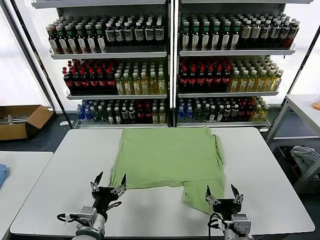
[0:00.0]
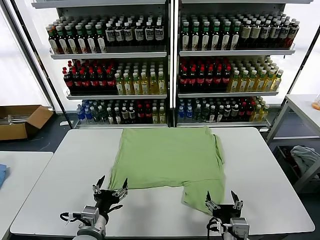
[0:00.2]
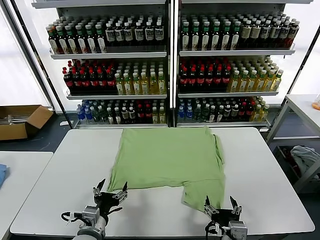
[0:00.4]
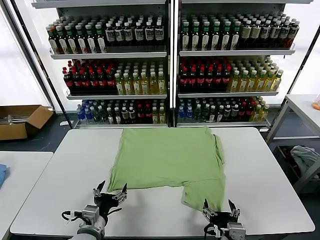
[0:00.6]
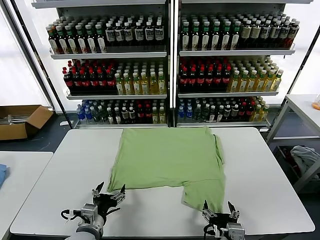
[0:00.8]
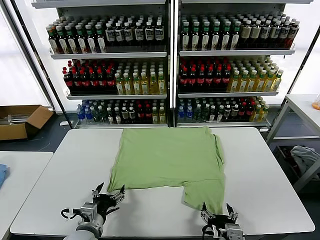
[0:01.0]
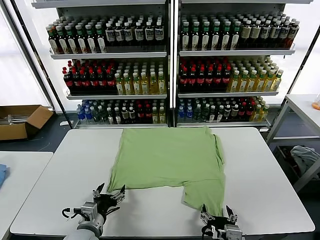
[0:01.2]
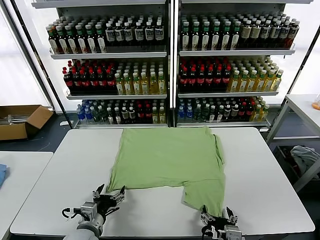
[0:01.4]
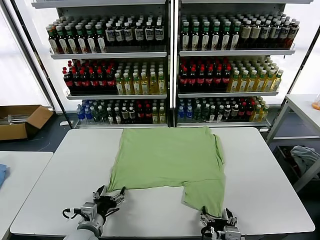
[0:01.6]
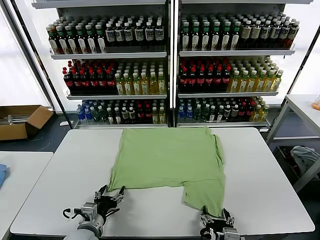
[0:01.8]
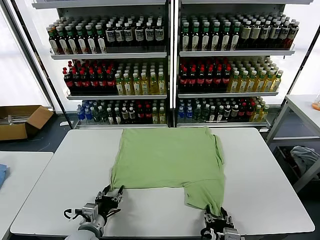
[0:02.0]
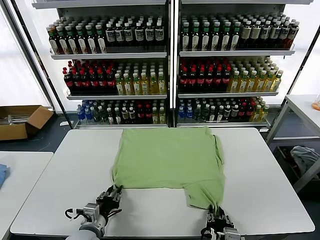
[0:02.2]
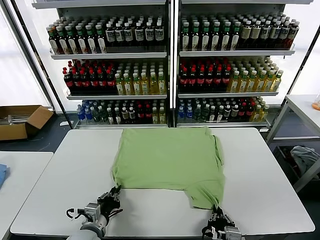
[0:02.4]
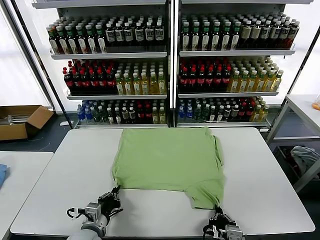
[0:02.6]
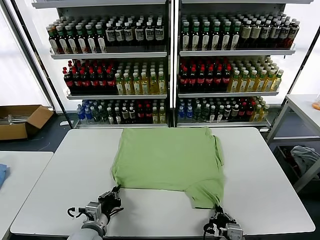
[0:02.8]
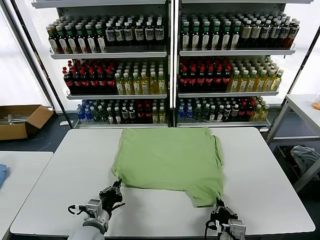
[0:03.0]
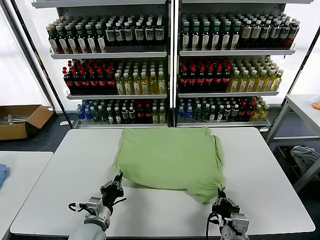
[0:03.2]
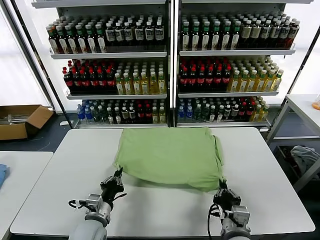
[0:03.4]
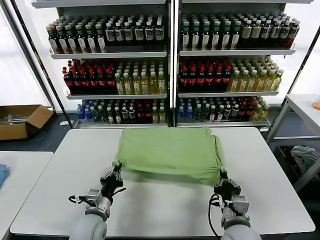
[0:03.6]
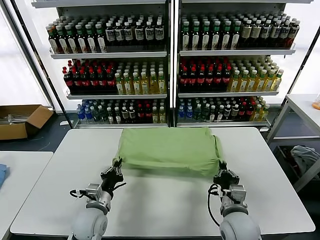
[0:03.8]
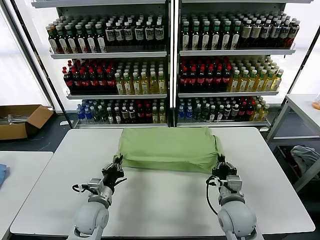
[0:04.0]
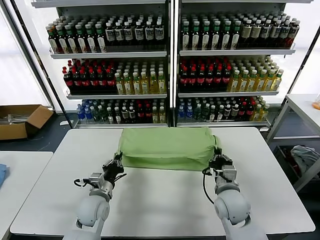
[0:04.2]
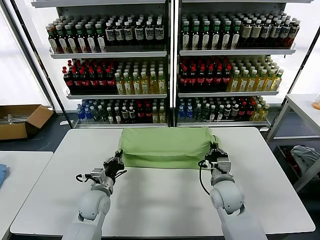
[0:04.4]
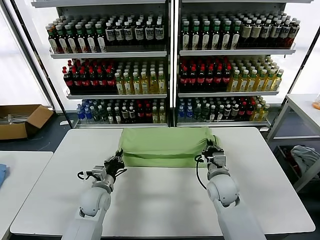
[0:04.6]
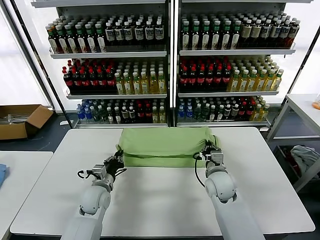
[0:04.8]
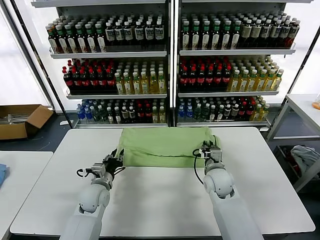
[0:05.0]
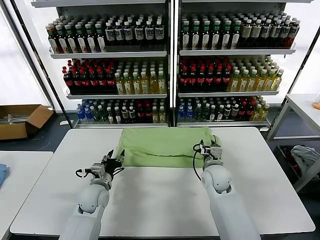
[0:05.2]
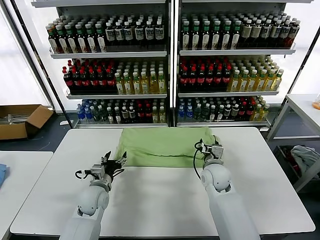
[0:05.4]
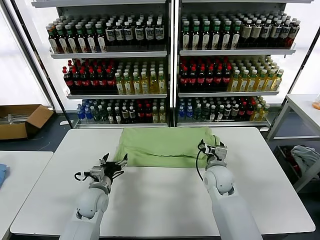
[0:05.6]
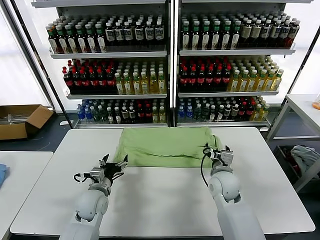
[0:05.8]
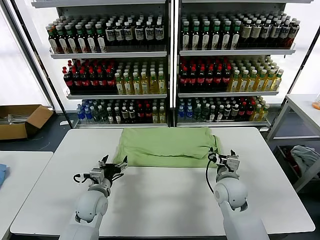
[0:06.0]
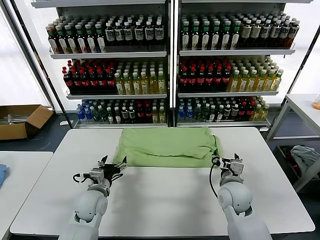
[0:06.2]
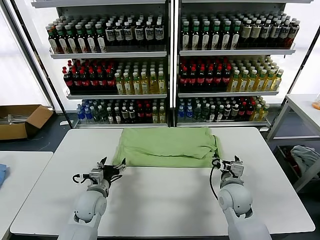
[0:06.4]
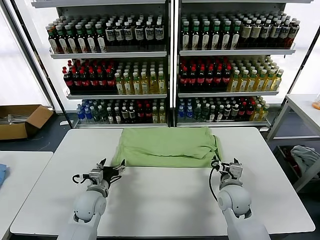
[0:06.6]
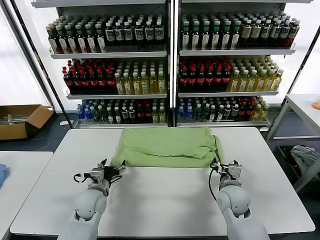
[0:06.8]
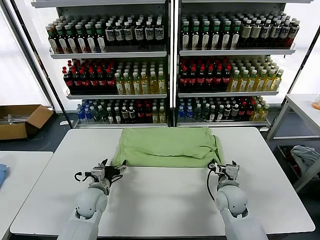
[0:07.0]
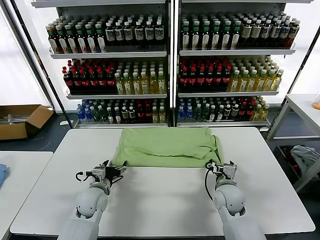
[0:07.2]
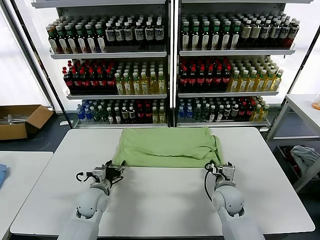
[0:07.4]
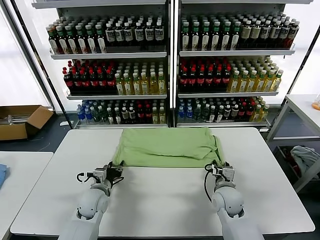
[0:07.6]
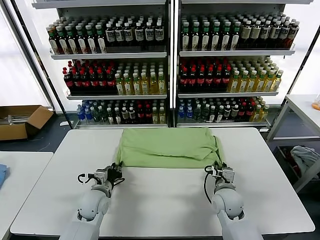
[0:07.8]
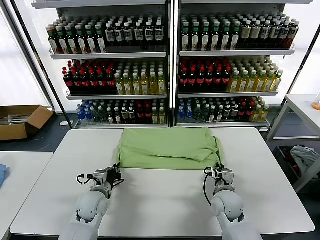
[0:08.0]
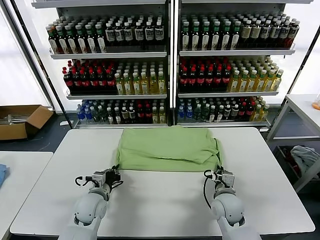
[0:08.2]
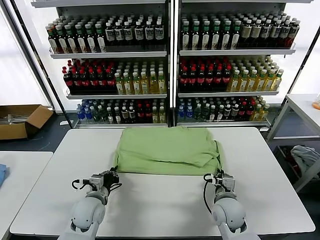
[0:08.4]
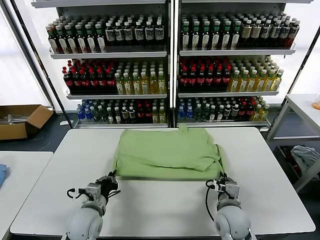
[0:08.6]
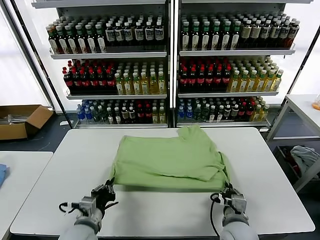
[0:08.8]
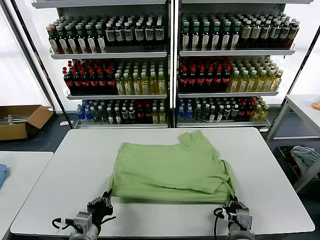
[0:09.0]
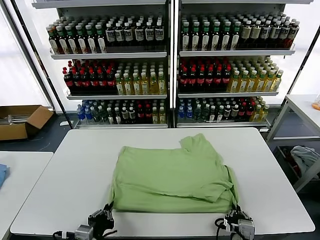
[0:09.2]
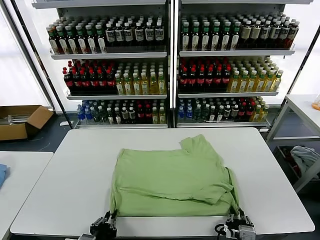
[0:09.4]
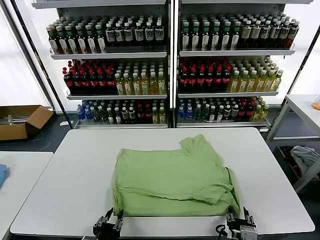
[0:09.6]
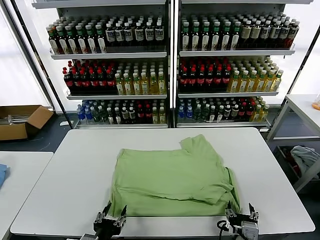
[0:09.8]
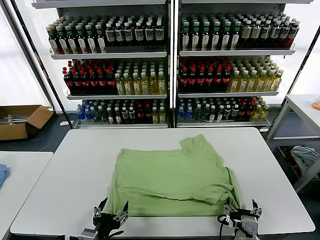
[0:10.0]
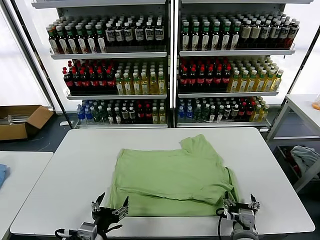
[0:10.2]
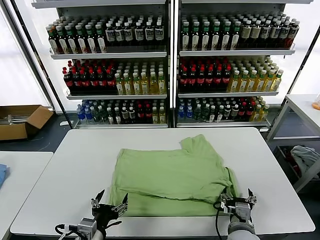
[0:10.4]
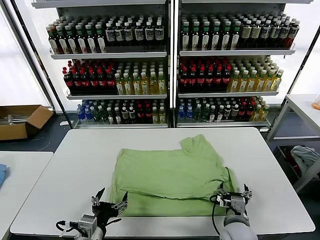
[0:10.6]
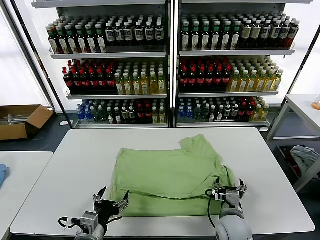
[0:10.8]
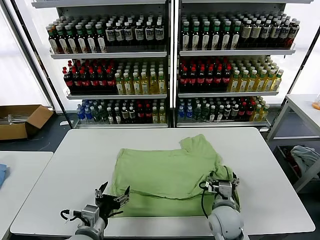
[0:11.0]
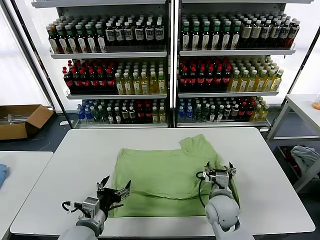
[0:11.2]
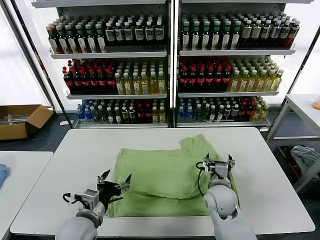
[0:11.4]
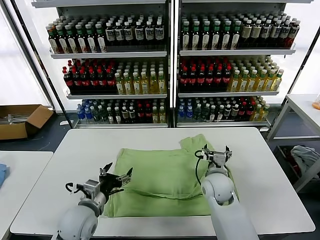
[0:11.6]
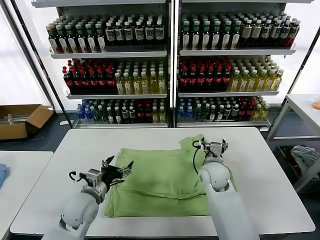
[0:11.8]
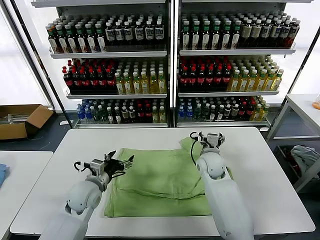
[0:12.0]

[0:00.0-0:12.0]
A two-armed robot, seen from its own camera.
Task of the whole recording: fold and organize the clothes.
Step, 0:00.0 to 0:02.4: use both grippers simultaneously to clamp the lower edge of the clothing fabric.
Step, 0:02.6 to 0:05.6: use both grippers to drag the lower edge of the fabric forward and fold it over the upper edge.
Step, 0:05.8 to 0:09.6: Drag the clothes downward with both gripper.
0:01.6 to 0:03.0: The right gripper closes up. The left gripper closes.
0:03.0 to 0:04.4: The left gripper is displaced forward by roughly 10 cm. The right gripper is displaced forward by some 20 cm.
0:04.4 to 0:06.0: The left gripper opens, while the right gripper opens its fingers.
0:06.0 to 0:07.6: The right gripper is displaced downward by roughly 5 cm, and closes up. The left gripper closes.
0:07.6 to 0:09.0: Both grippers move backward, approximately 20 cm. The right gripper closes its fingers. Meanwhile the left gripper closes up.
0:09.0 to 0:10.4: The left gripper opens its fingers; the right gripper heads forward, covering roughly 5 cm, and opens its fingers.
0:10.4 to 0:12.0: Both grippers travel together forward, about 20 cm.

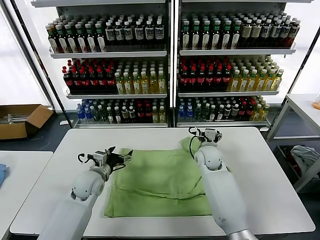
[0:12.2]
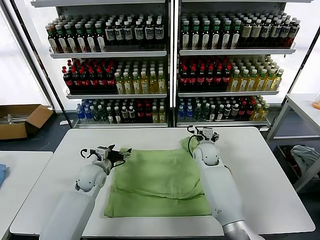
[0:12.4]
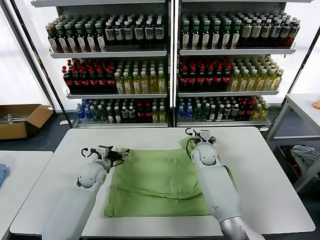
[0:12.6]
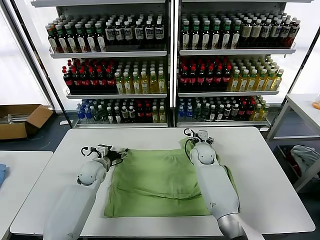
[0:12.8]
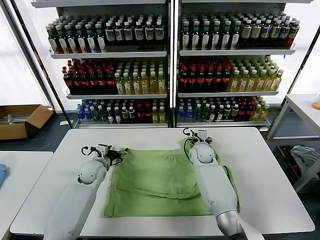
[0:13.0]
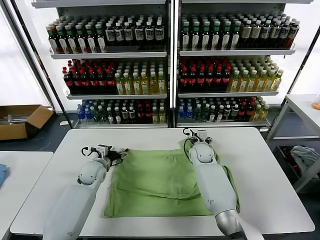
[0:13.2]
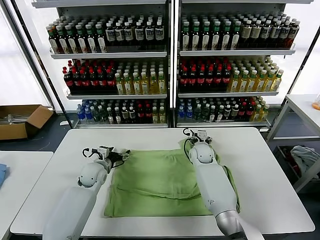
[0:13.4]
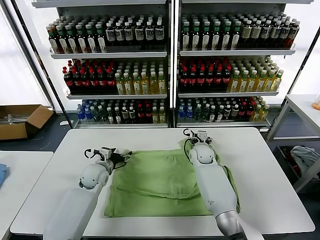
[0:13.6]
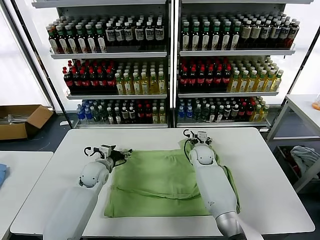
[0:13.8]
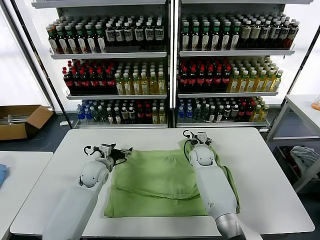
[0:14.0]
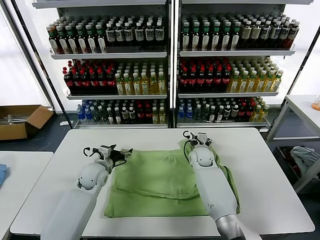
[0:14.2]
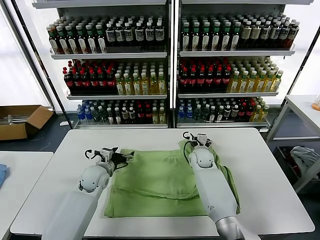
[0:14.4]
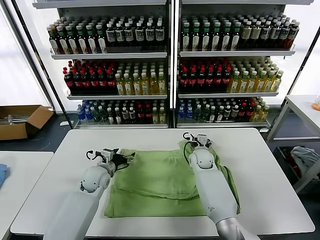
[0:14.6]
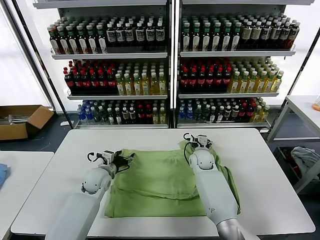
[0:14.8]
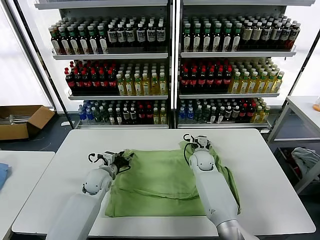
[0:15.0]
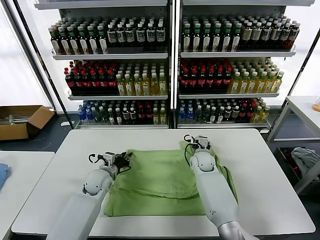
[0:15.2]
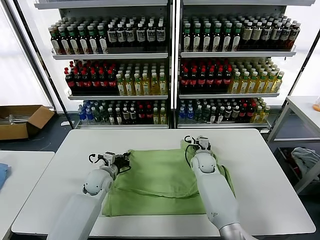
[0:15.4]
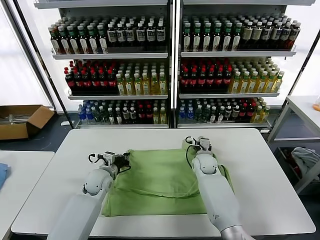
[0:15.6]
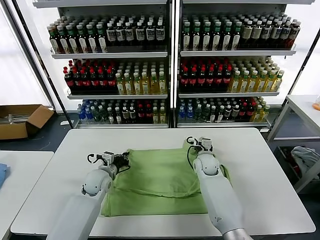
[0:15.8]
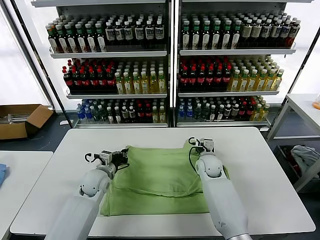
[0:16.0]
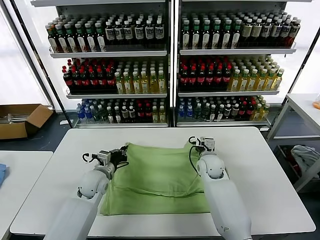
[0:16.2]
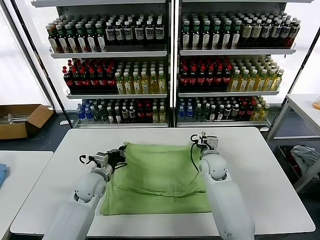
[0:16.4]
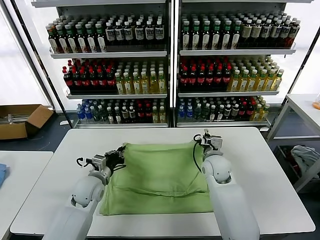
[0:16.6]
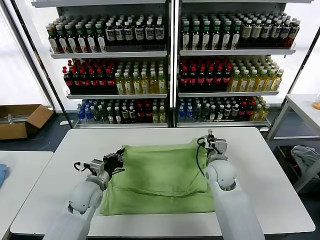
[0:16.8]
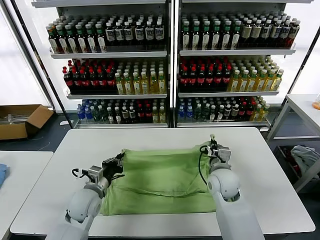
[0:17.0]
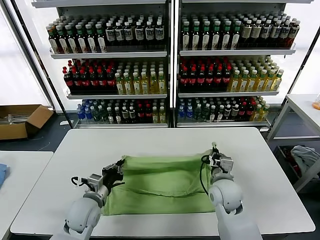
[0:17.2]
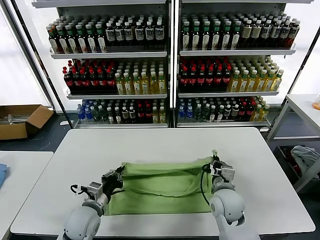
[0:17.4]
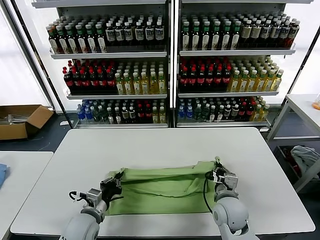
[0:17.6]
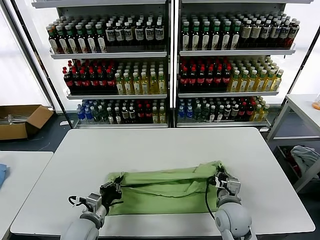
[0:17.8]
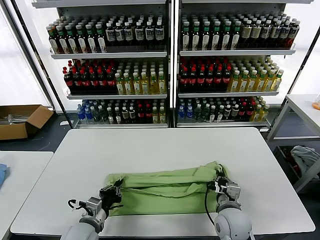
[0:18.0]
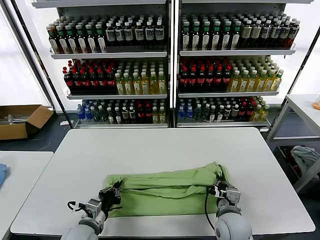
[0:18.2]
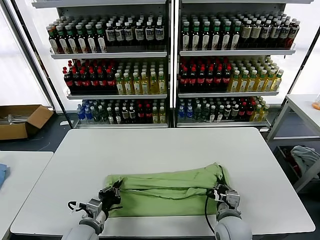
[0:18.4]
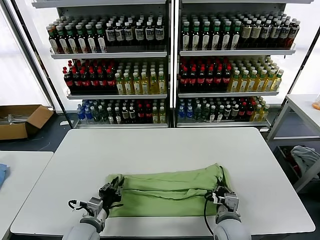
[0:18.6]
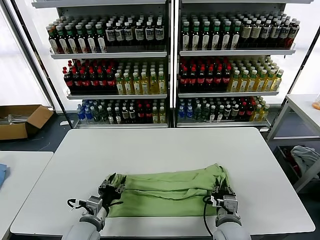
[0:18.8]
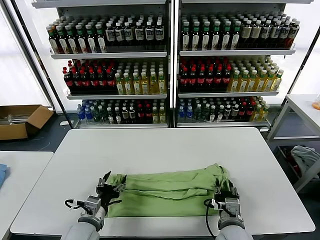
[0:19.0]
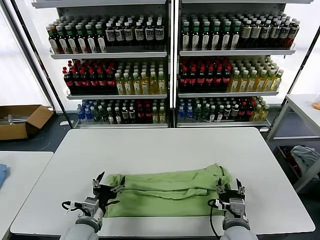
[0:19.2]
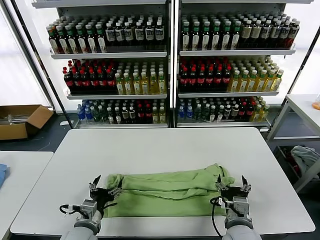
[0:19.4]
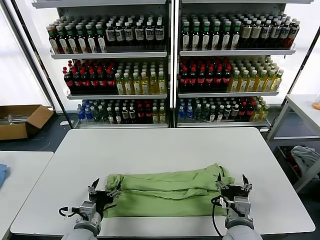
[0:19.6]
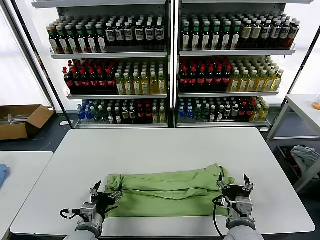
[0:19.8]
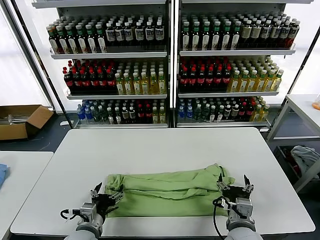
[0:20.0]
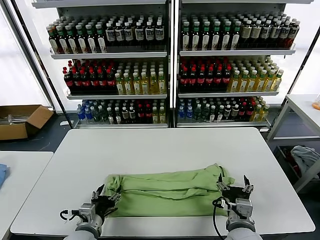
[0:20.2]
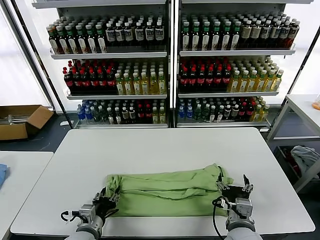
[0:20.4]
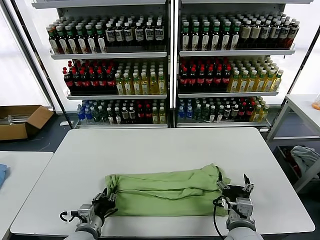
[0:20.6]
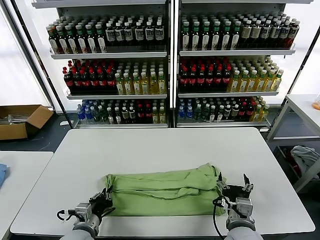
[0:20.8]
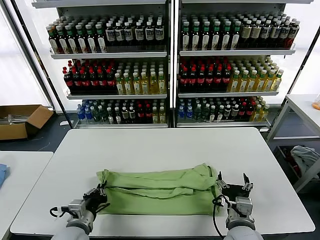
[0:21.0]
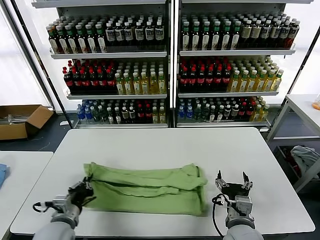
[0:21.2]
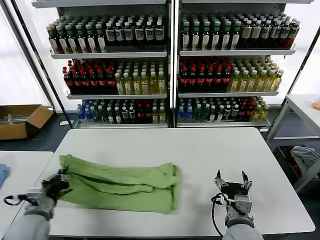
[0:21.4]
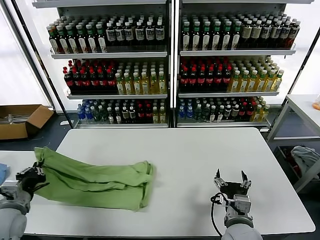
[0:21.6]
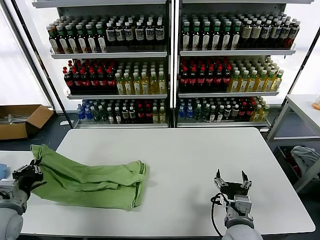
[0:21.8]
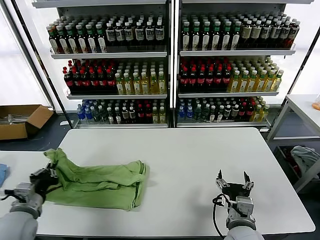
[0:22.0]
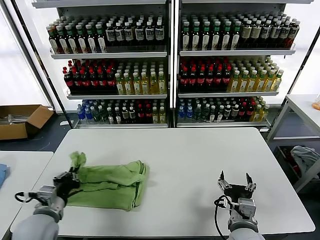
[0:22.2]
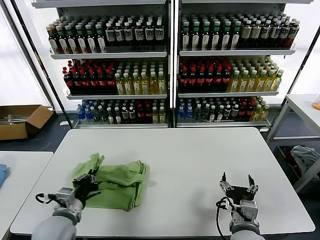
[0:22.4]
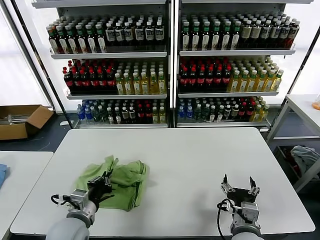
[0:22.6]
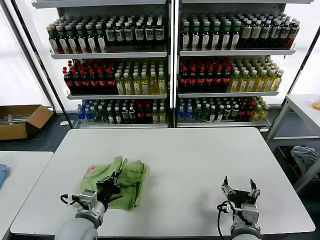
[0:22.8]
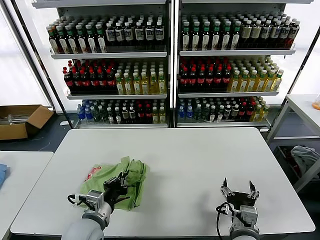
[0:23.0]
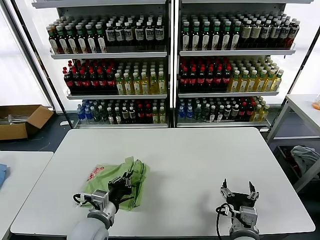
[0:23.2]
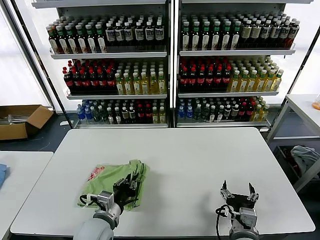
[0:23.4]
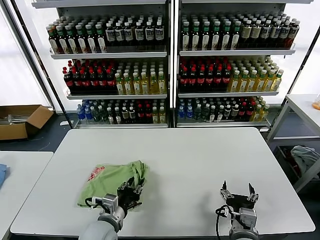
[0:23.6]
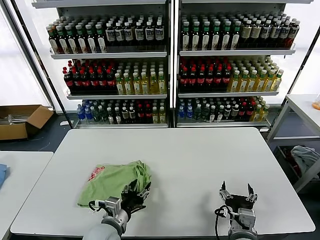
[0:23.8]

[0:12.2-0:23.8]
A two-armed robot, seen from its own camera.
Task of the whole recording: fold and organize the clothes.
Step, 0:12.2 to 0:15.6: use both grippers simultaneously to clamp the upper edge of the clothing fabric.
Step, 0:15.8 to 0:19.0: use both grippers to drag the upper edge of the fabric backward and fold it over the lower edge.
Step, 0:19.2 to 0:20.8: use the left gripper to clamp the left edge of the fabric.
0:12.2 to 0:13.6: The left gripper shifts by roughly 5 cm. Meanwhile the right gripper is displaced downward by some 5 cm.
0:13.6 to 0:15.0: The left gripper closes.
0:15.0 to 0:16.6: The left gripper travels backward by about 5 cm, and closes up, while the right gripper shifts approximately 10 cm upward and backward, and closes its fingers.
0:16.6 to 0:18.0: Both grippers travel together backward, approximately 15 cm.
0:18.0 to 0:19.4: The right gripper goes about 5 cm backward, and opens its fingers. Meanwhile the left gripper opens up.
0:19.4 to 0:21.0: The left gripper closes its fingers.
0:21.0 to 0:22.4: The left gripper moves upward, some 5 cm, and goes to the left and returns, about 15 cm each way.
0:22.4 to 0:23.8: The left gripper is displaced to the right by some 10 cm, and opens.
